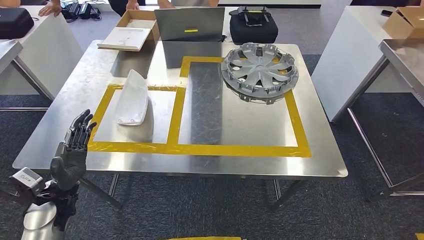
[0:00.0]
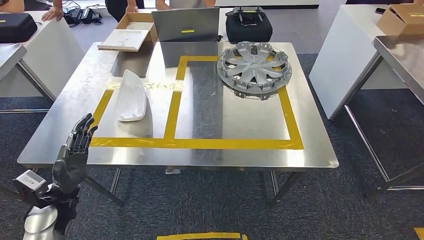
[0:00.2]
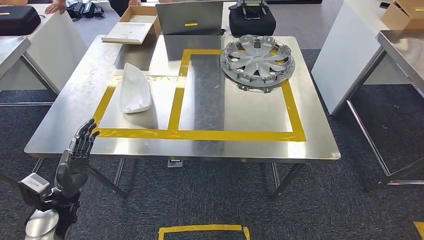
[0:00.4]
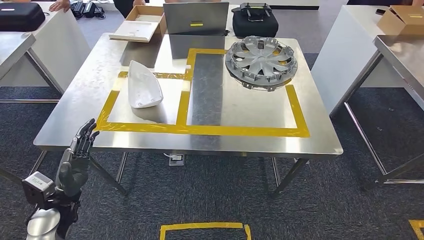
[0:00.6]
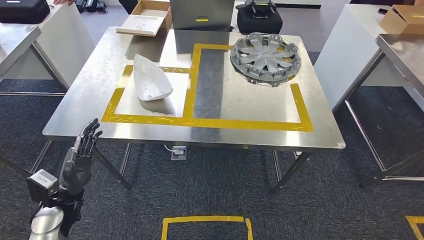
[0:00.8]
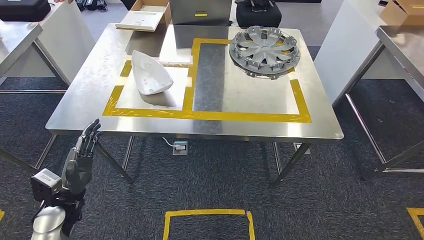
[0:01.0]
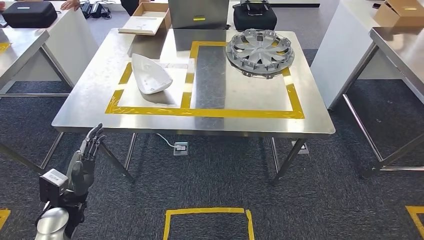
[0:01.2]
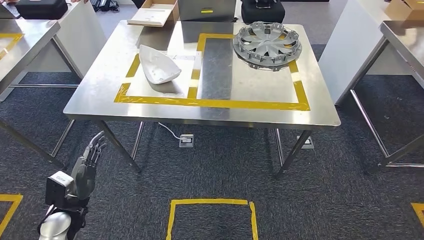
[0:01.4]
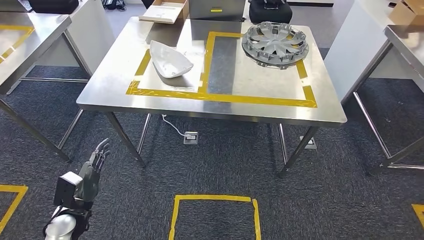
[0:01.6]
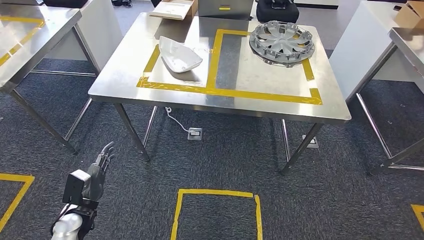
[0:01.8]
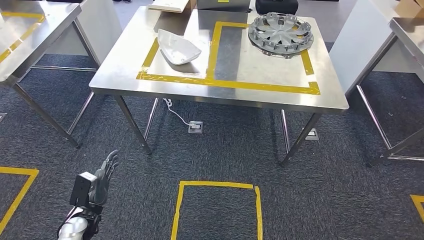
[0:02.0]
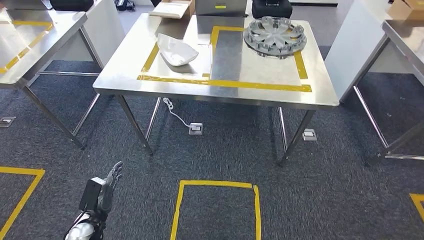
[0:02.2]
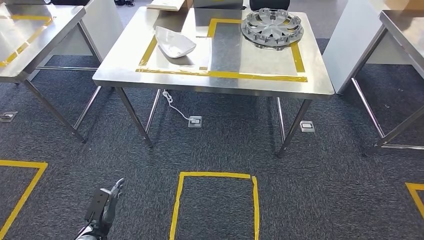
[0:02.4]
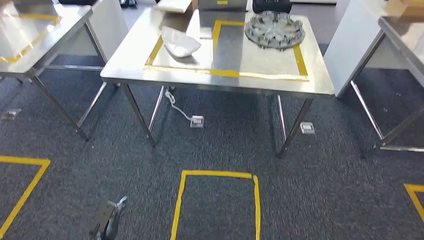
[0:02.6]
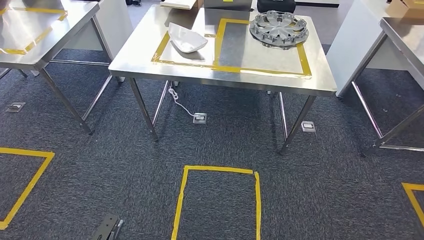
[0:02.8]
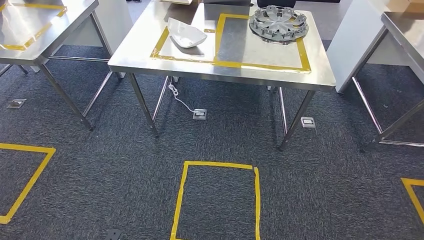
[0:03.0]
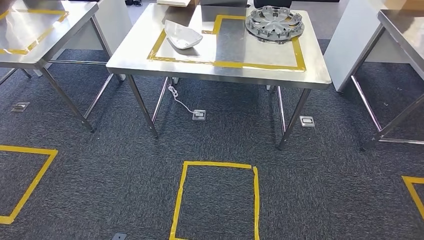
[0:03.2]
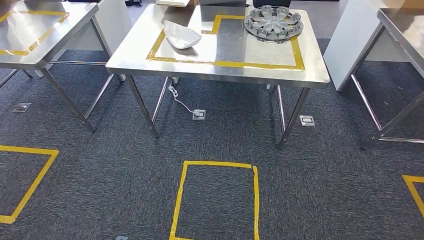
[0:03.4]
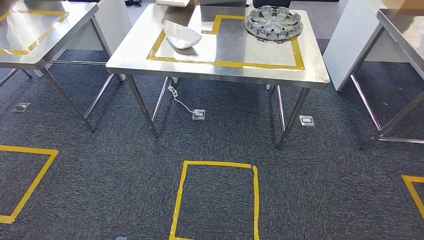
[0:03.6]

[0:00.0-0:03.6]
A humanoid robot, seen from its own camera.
Step, 0:00.0 to 0:03.6: Move to the initial position of the workbench.
